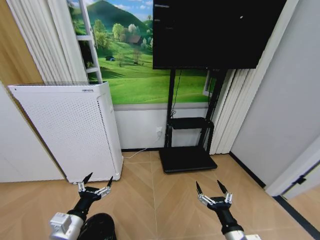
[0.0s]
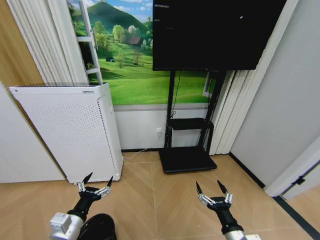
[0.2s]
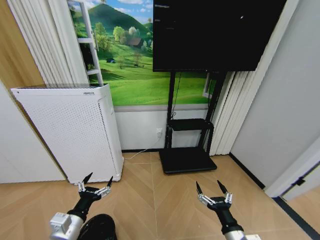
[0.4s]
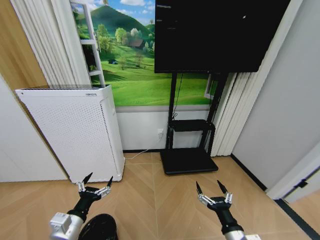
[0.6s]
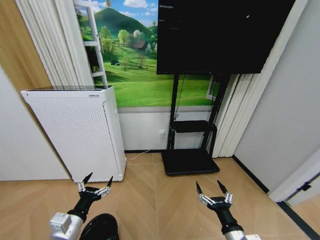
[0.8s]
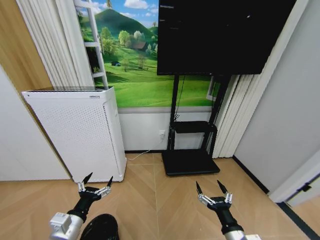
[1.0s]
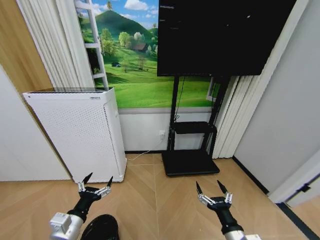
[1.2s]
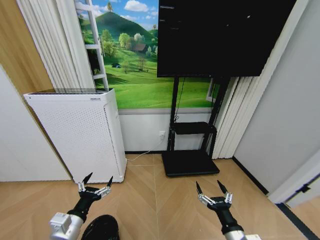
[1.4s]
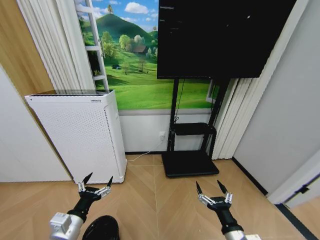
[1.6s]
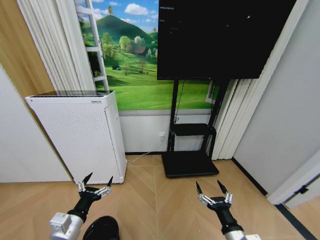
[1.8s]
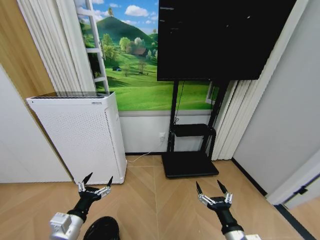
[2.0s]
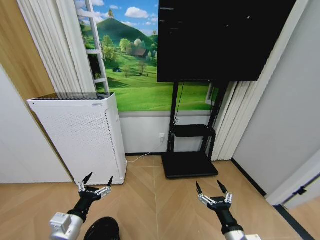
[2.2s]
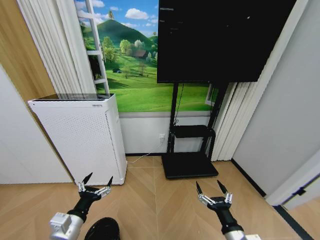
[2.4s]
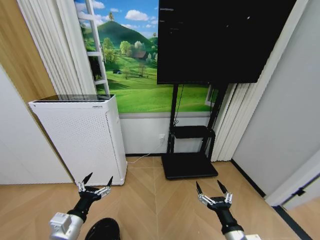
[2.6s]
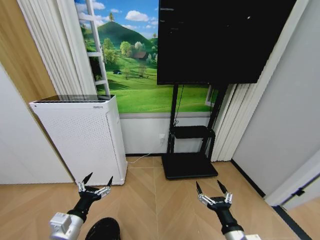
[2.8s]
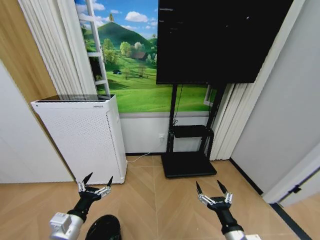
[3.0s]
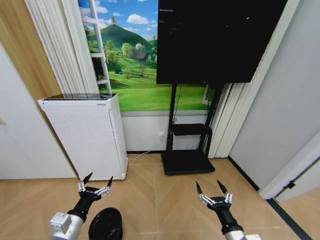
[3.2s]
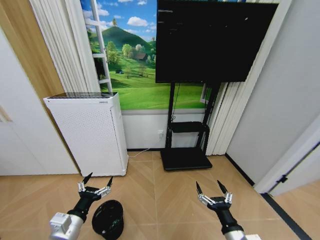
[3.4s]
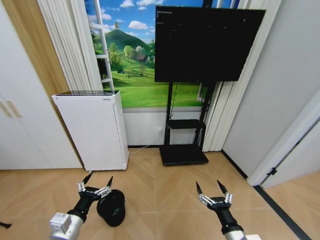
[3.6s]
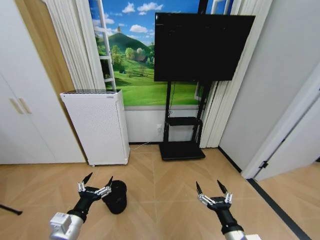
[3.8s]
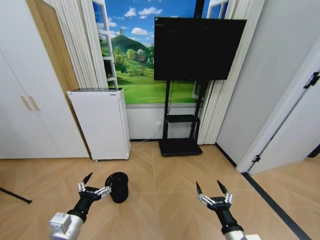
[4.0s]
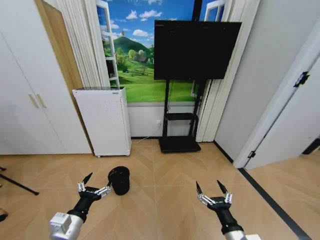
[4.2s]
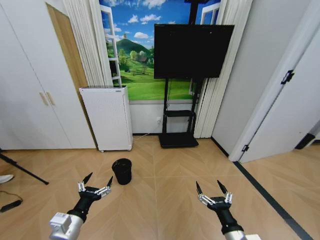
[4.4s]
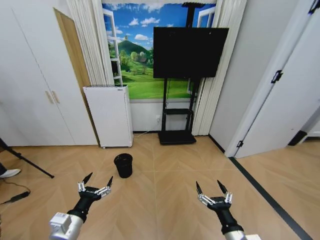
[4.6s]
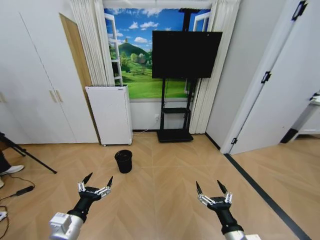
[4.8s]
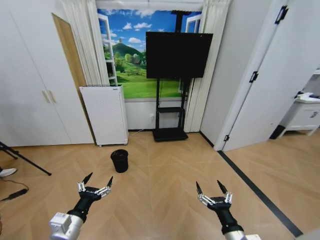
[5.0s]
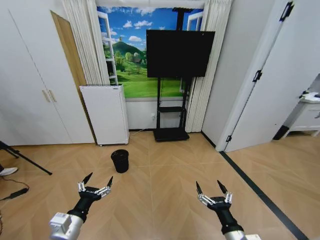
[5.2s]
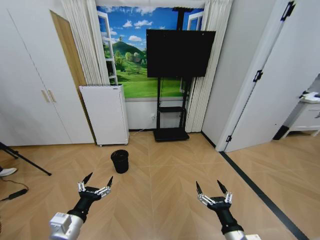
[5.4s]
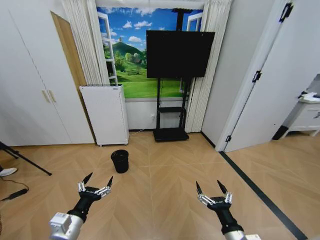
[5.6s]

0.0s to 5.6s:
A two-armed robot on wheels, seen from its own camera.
Task of the whole recording: Pick up the trash bin and place the garbage on the floor into it.
1.4s to 2.8s: Both grippers stay about where they are.
